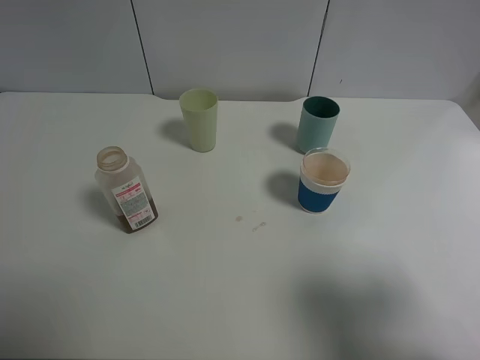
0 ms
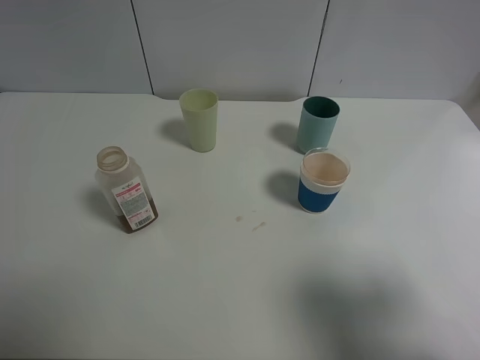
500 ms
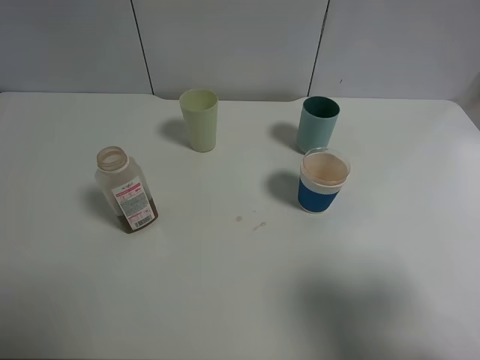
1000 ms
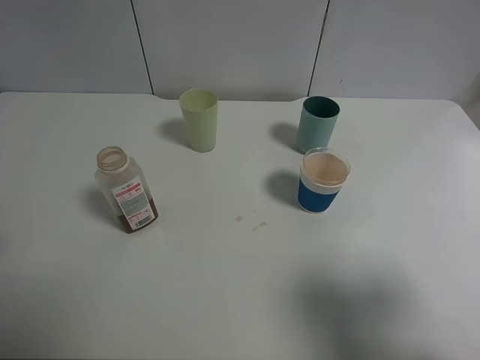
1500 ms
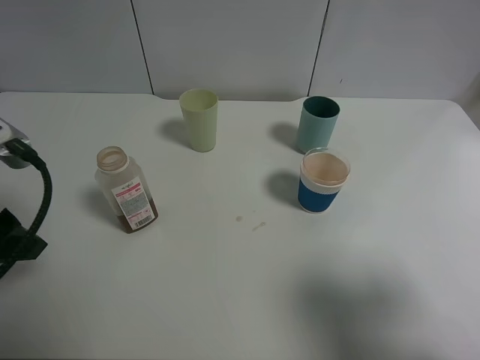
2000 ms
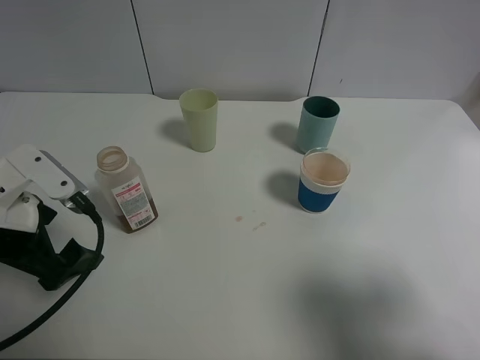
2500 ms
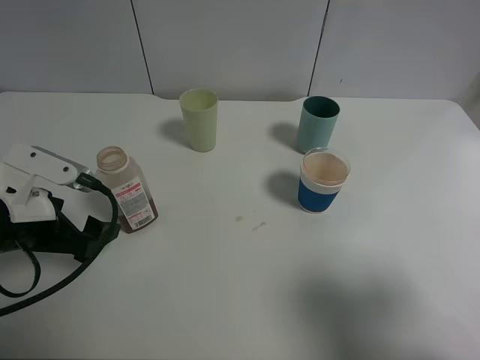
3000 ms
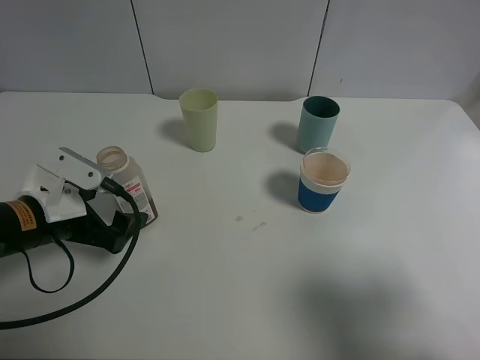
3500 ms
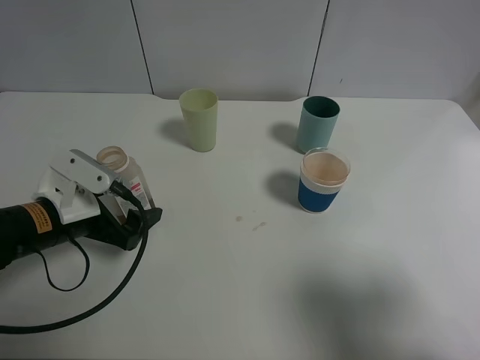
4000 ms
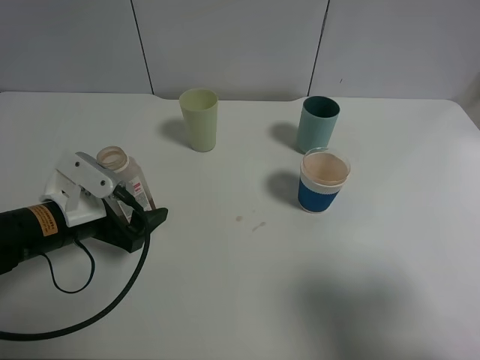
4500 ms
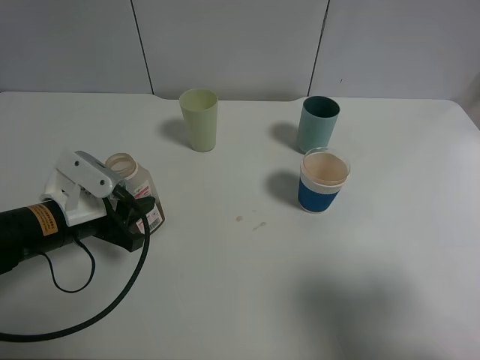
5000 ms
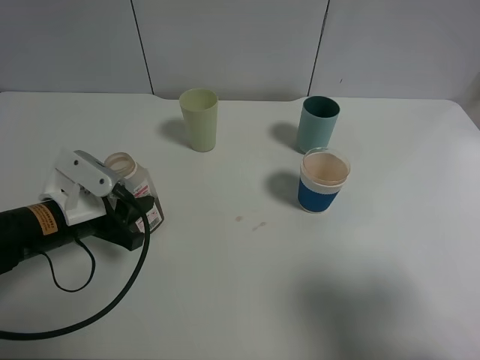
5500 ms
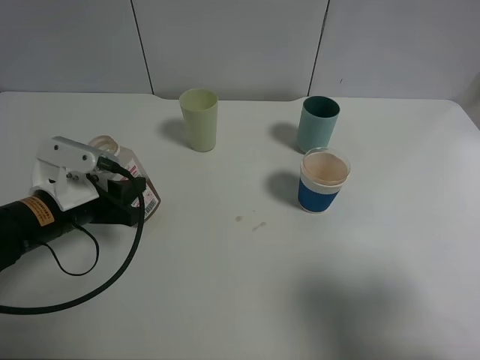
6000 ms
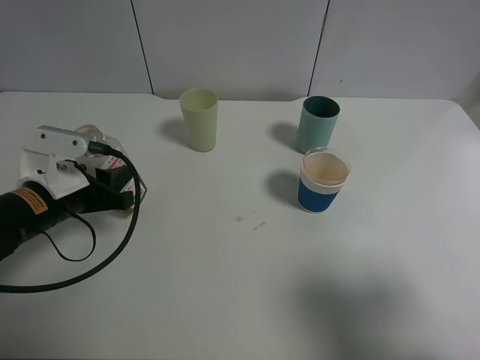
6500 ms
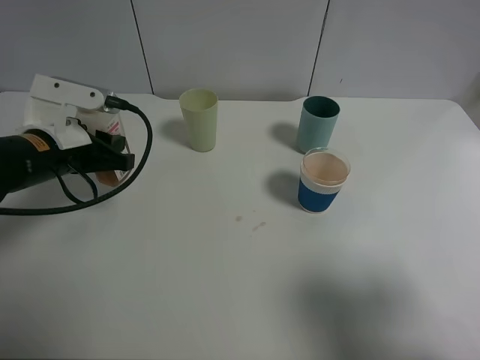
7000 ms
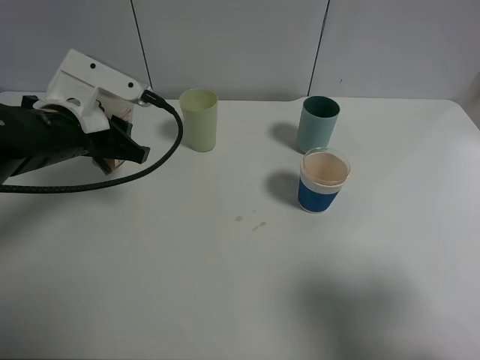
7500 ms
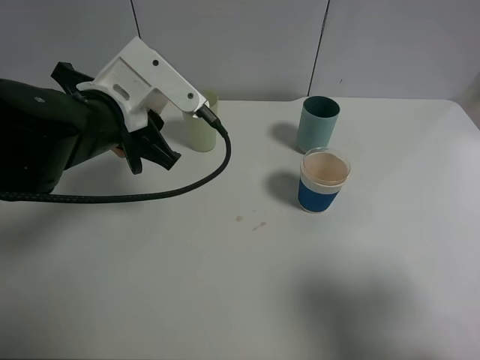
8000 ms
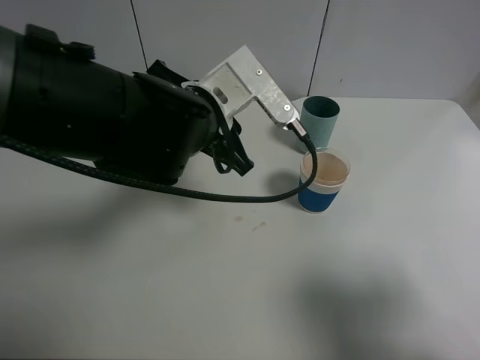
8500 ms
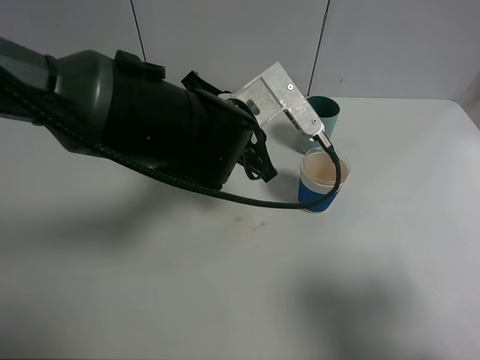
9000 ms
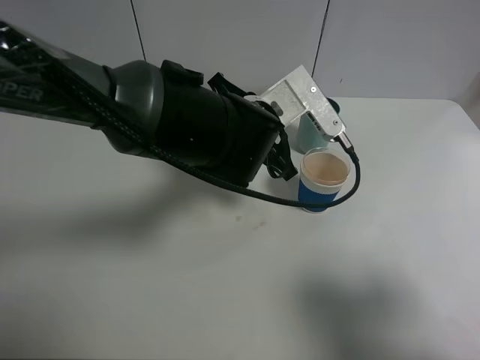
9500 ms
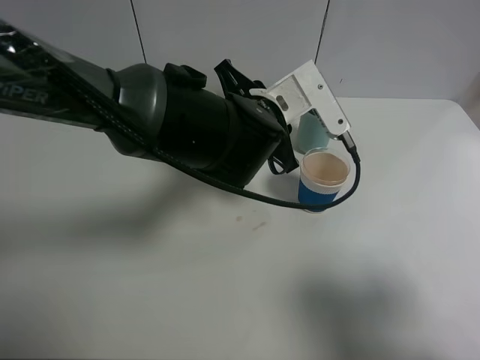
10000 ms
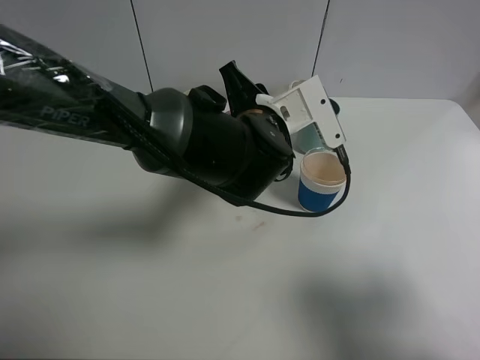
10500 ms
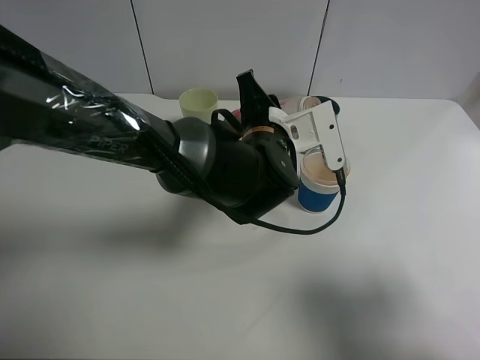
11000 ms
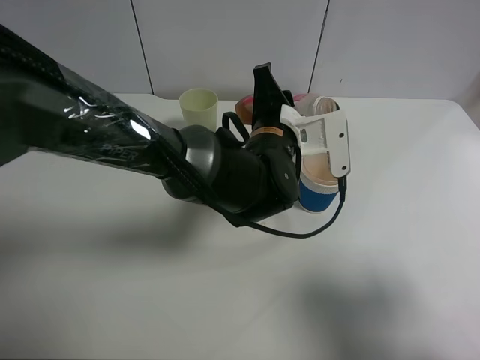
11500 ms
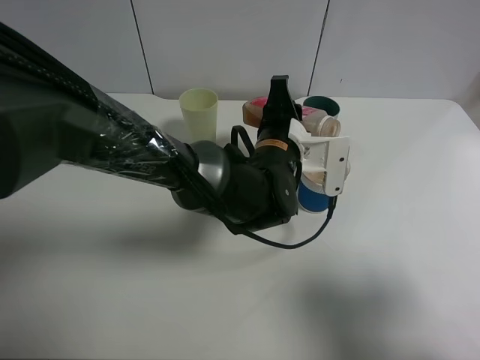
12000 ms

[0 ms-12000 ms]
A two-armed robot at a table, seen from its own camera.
Task of the whole recording: use a clamp to hold the bottle of the drink, pour the beverage into a random cup, then clamp the cup containing the drink and pour the drink into another random cup.
Step, 0 ms to 6500 ms: Pick up the drink bottle with left gripper.
0 ms to 2000 ms: The left gripper goes roughly 15 cm forward.
2000 ms to 4000 ms: The left gripper moves downward, roughly 15 cm.
4000 ms to 6000 ms: The left gripper closes.
6000 ms to 8000 ms: The left gripper heads upward and to the right, covering approximately 10 cm.
8000 ms to 10000 ms: The left gripper travels to the right by about 15 cm.
10000 ms to 12000 ms: The left gripper ends up some 5 cm from where it was.

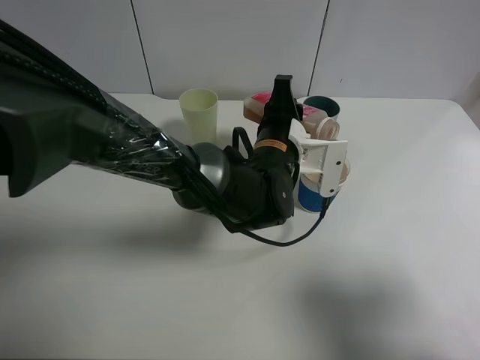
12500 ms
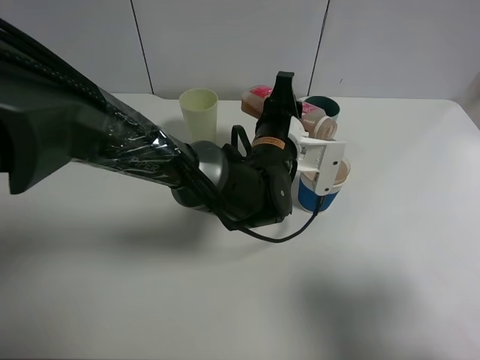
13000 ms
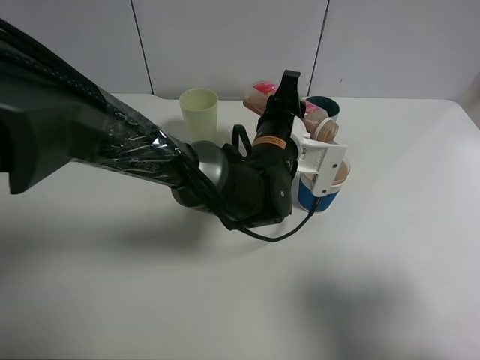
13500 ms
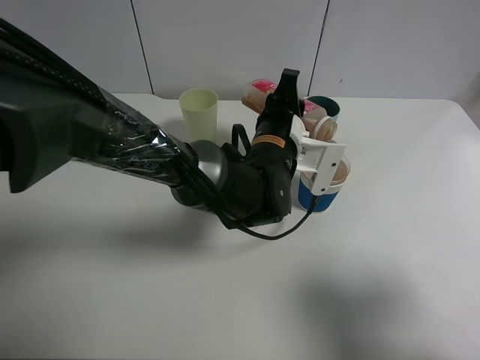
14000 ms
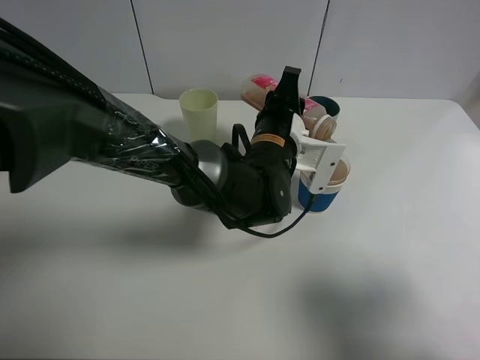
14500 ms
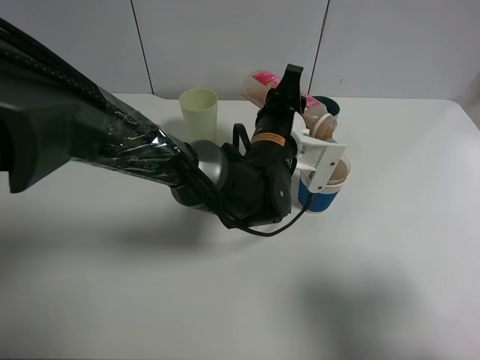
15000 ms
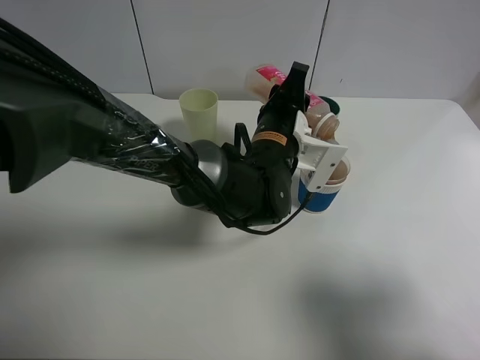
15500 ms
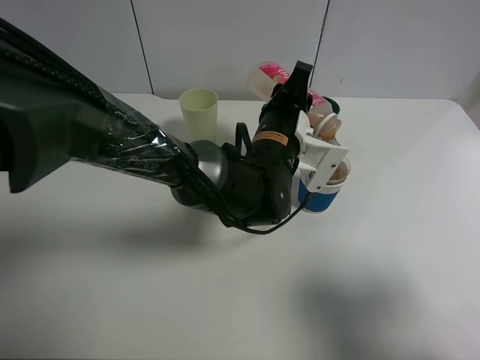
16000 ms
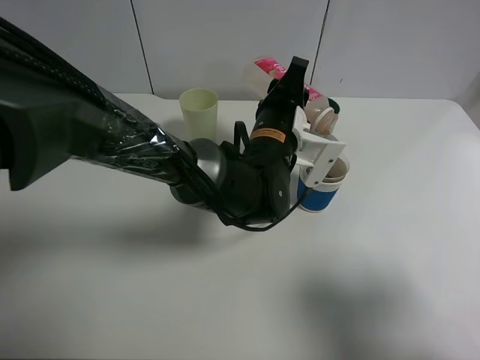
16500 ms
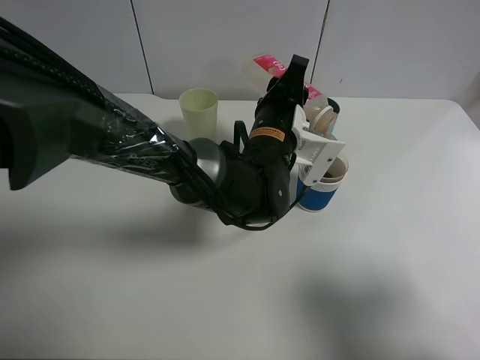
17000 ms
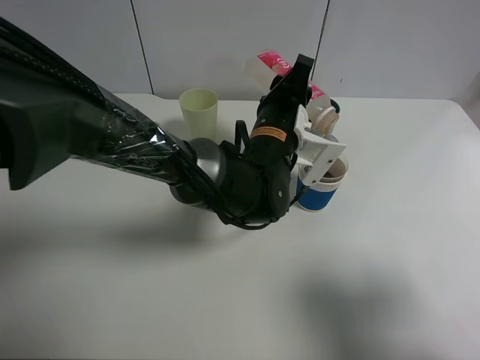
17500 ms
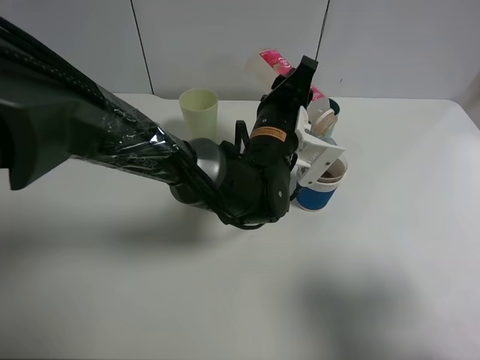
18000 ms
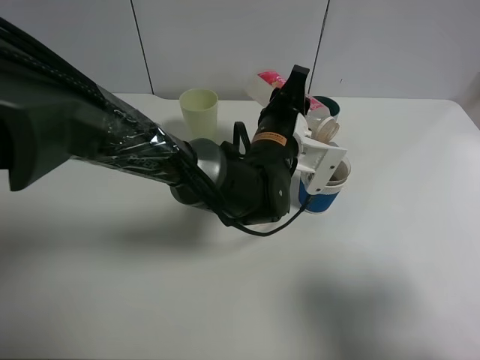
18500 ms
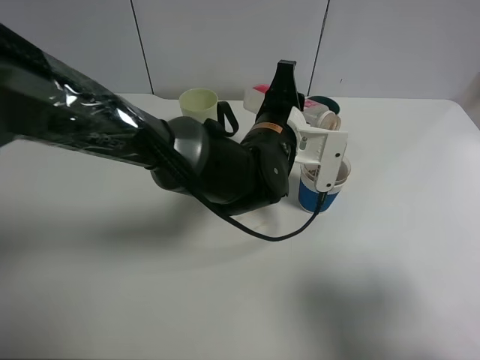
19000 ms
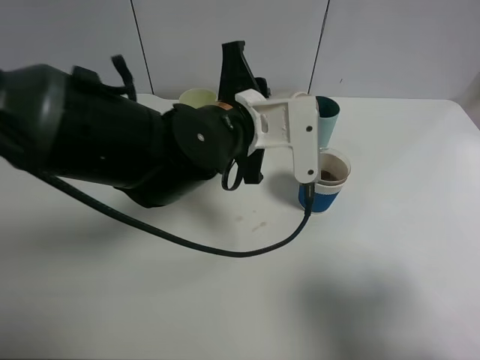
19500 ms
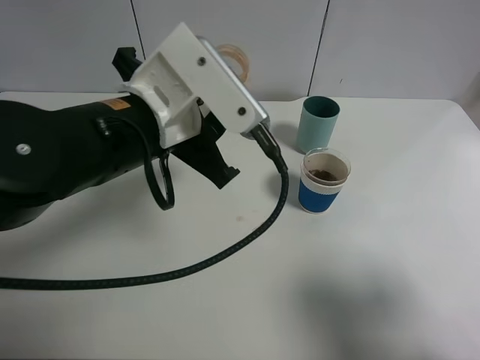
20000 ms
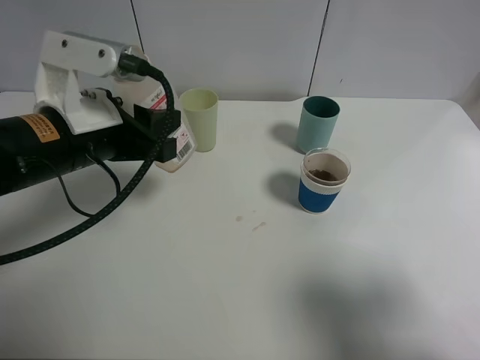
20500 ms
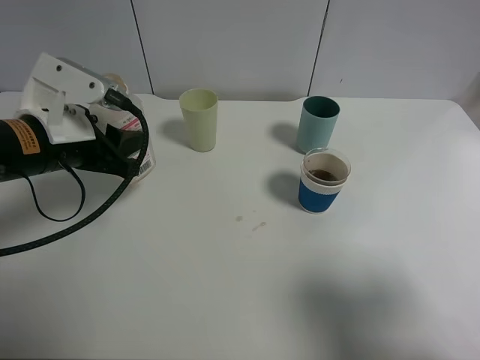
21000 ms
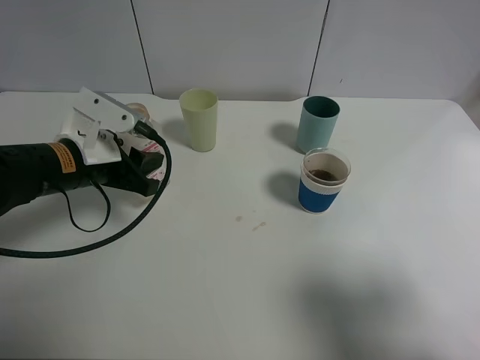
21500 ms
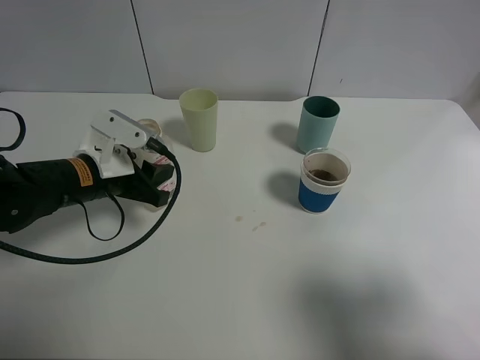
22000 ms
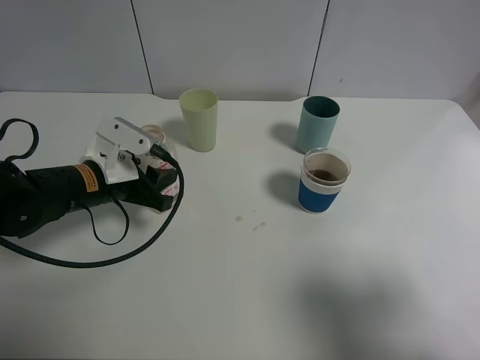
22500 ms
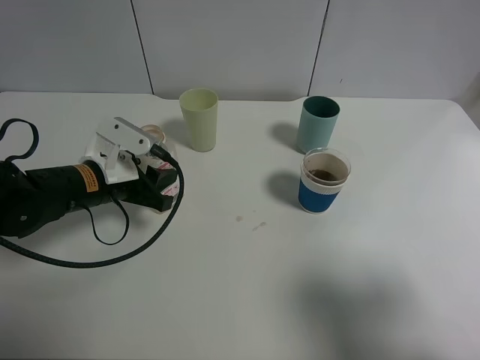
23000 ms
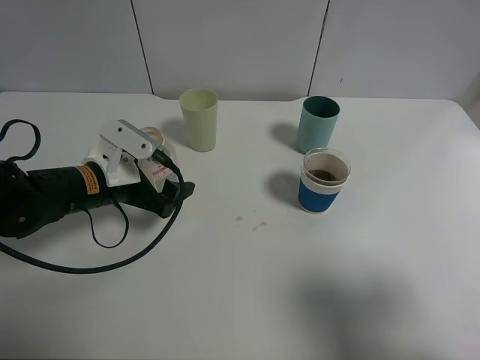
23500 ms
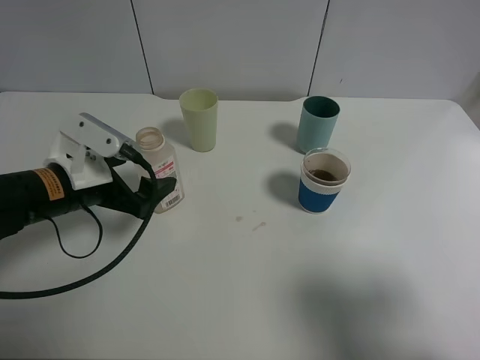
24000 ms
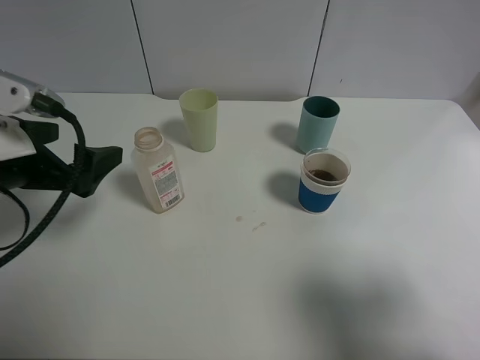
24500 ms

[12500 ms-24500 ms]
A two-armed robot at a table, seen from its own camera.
Task of the whole recording: use a clamp to hold the bottle of the drink, pour the beverage into a random cup, then clamp the cup containing the drink and pour the drink into another random cup.
Step, 12500 ms to 19000 ms: Pour the drink into the paper cup with left gripper.
Step, 19500 ms to 23500 ms: Place the drink bottle on the table with left gripper.
12500 ms to 16500 ms: The grippers move only a little.
16500 ms to 18500 ms: The grippers make only small movements.
18500 ms to 20500 ms: The left gripper is displaced to the left, backward and upward by roughly 25 cm.
20500 ms to 22500 ms: The left gripper shifts some 10 cm downward.
22500 ms to 24500 ms: The left gripper heads upward, backward and to the left, covering some 15 cm, and opens.

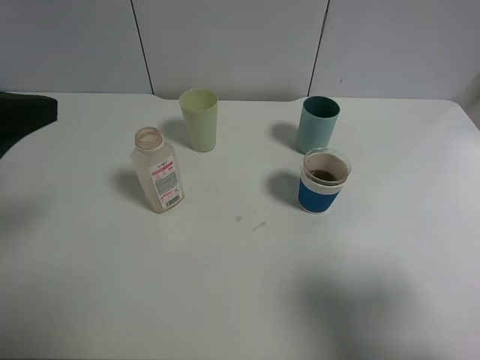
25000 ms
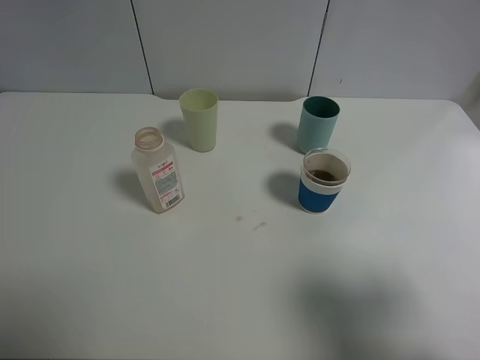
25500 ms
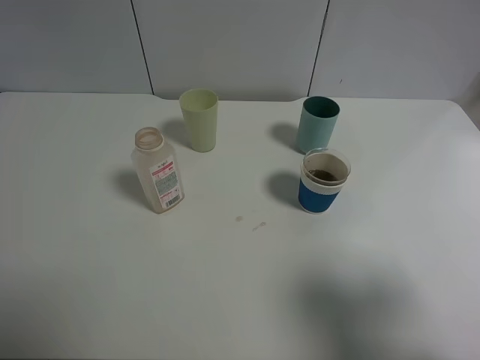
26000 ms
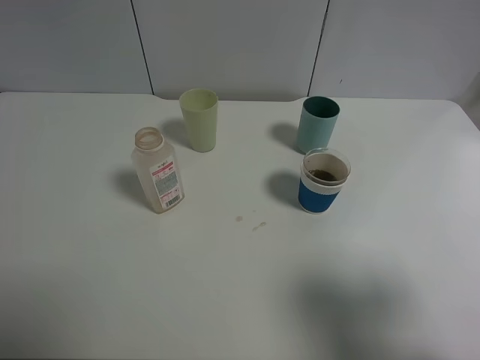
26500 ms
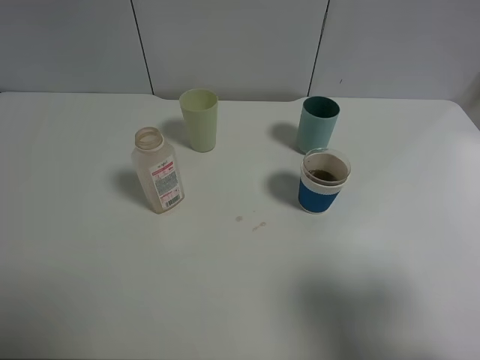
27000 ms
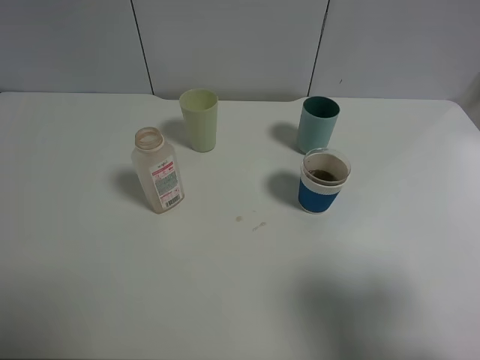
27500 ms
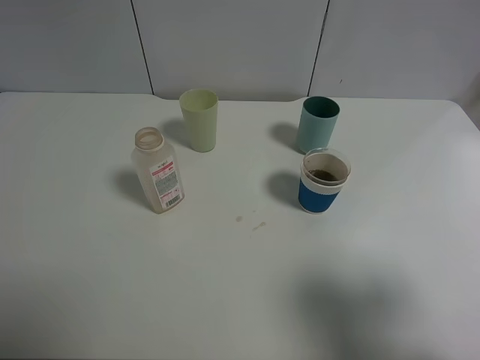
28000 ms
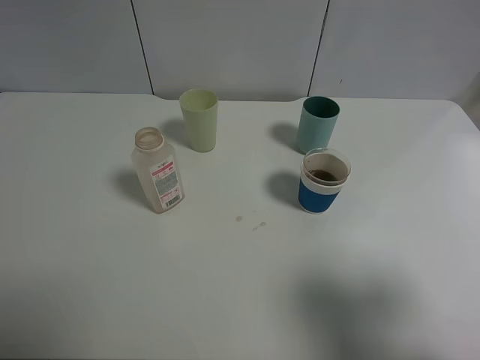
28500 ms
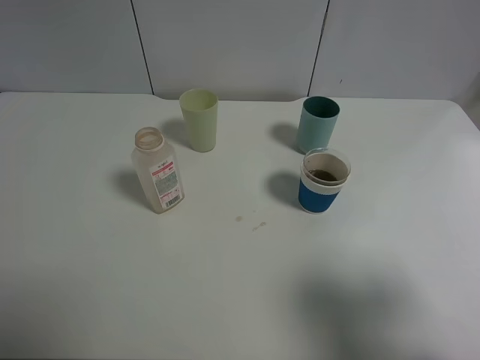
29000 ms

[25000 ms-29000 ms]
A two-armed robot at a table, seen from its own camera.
Task of the whole recording: use a clamp to hold the bottle of the drink, pour the beverage into a random cup, then clamp the cup containing the drink and pour the drink into another random cup.
25000 ms to 27000 ms: The left gripper shifts roughly 15 cm backward.
27000 ms to 29000 ms: Both grippers stay about where they are.
